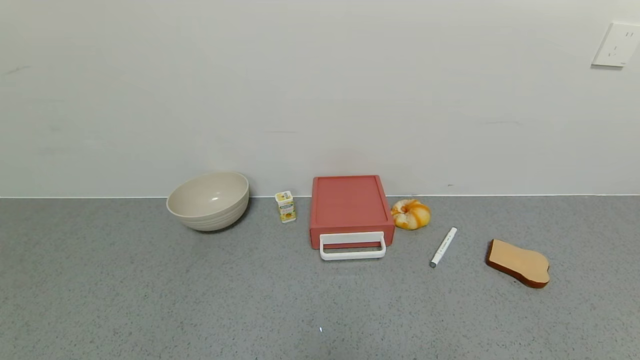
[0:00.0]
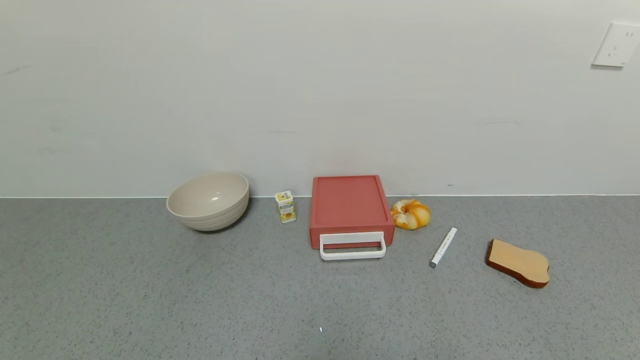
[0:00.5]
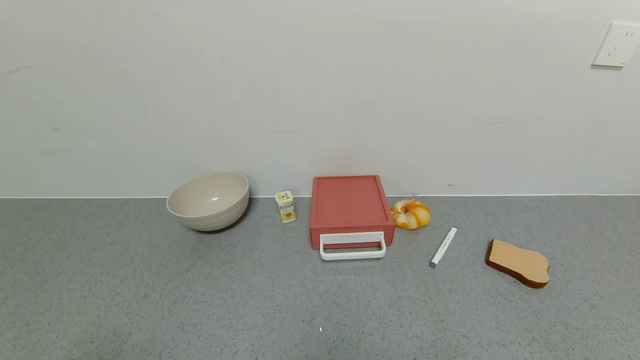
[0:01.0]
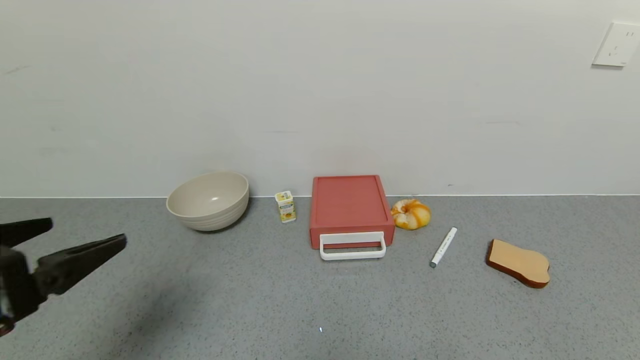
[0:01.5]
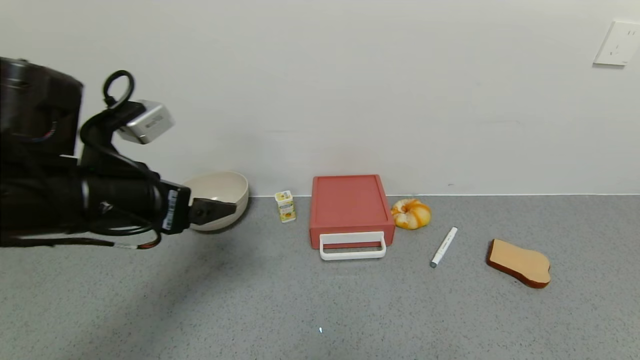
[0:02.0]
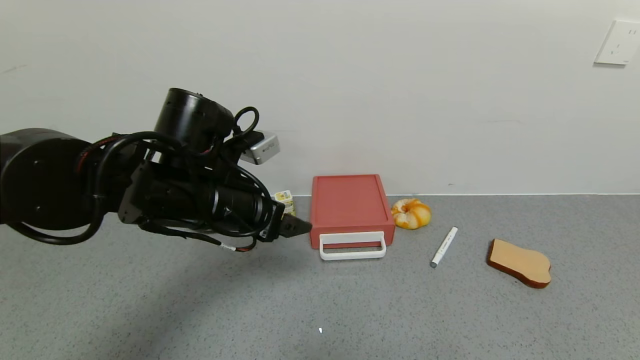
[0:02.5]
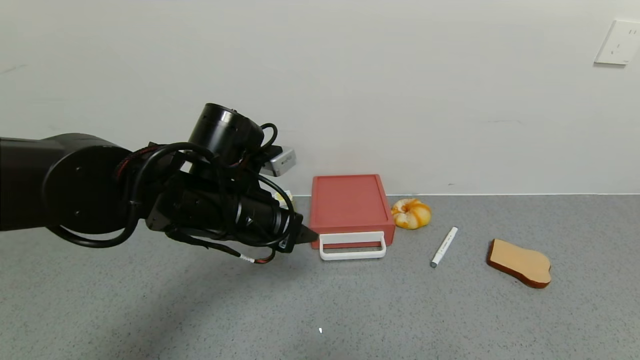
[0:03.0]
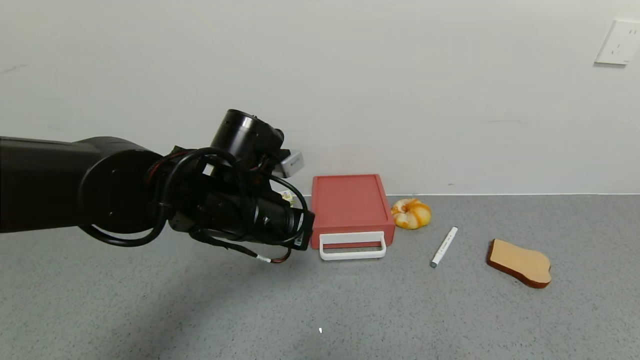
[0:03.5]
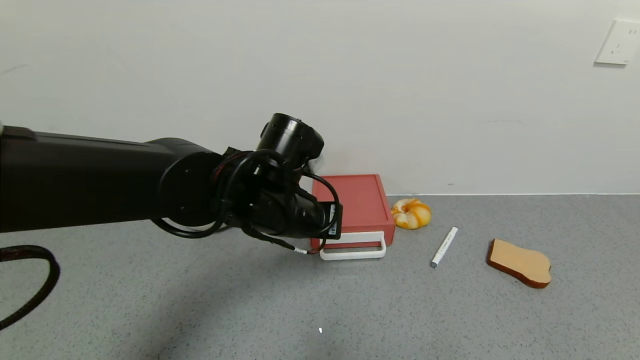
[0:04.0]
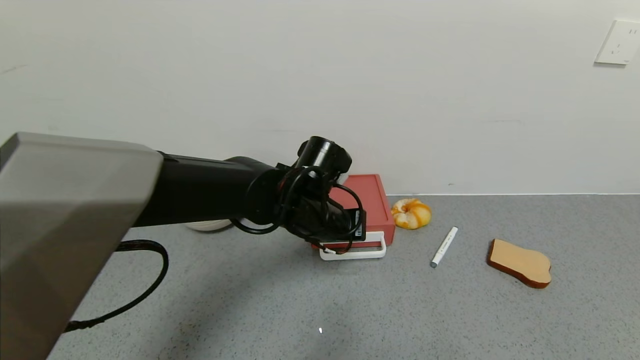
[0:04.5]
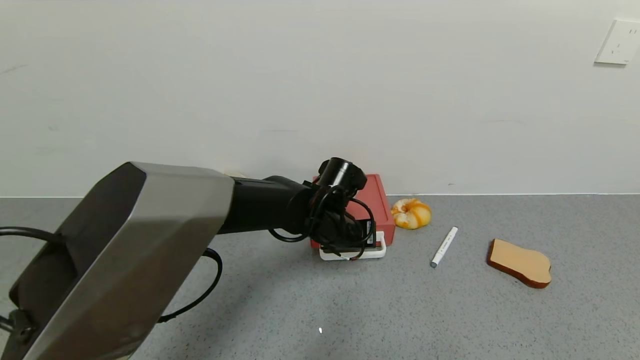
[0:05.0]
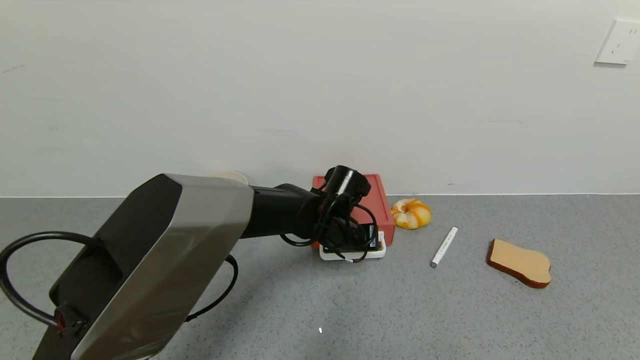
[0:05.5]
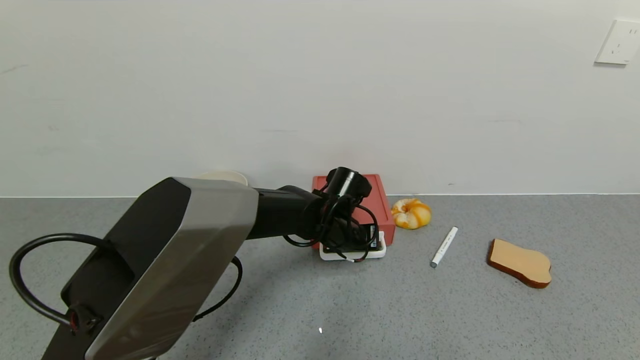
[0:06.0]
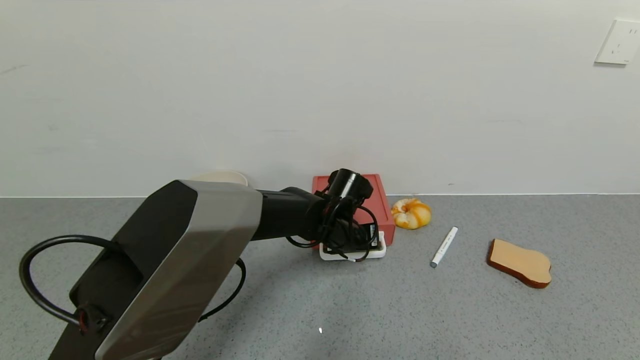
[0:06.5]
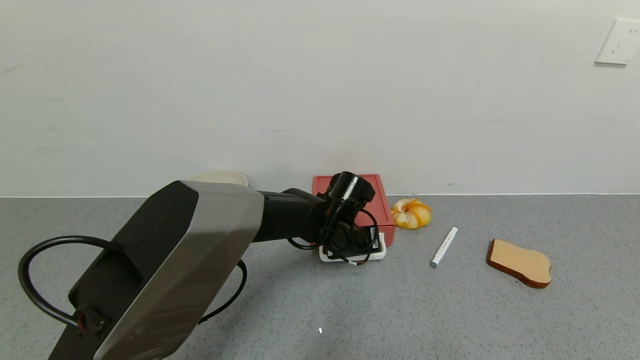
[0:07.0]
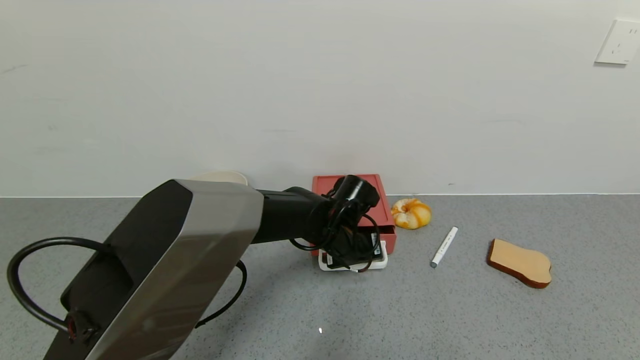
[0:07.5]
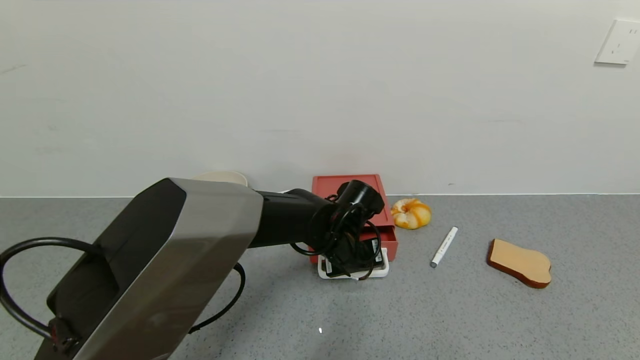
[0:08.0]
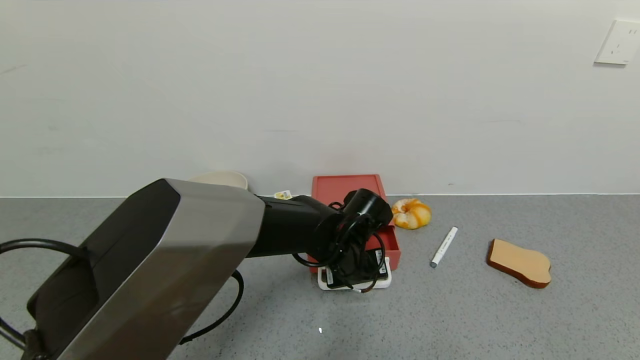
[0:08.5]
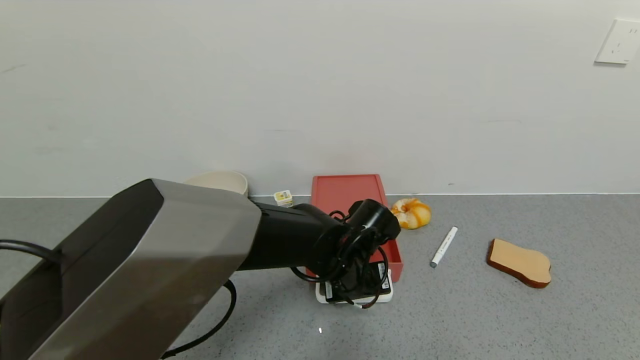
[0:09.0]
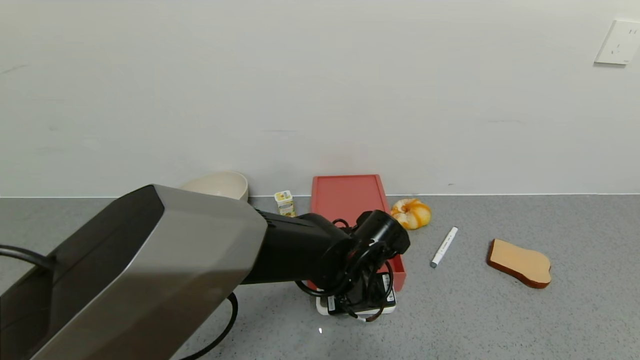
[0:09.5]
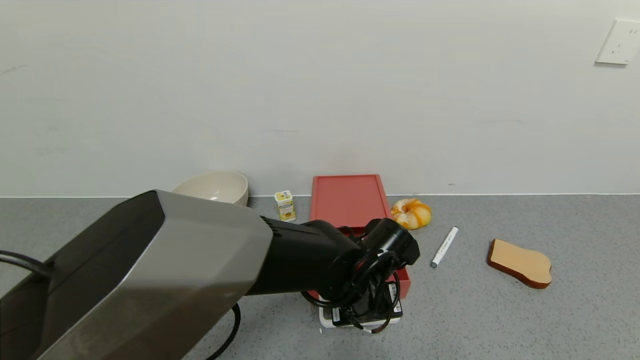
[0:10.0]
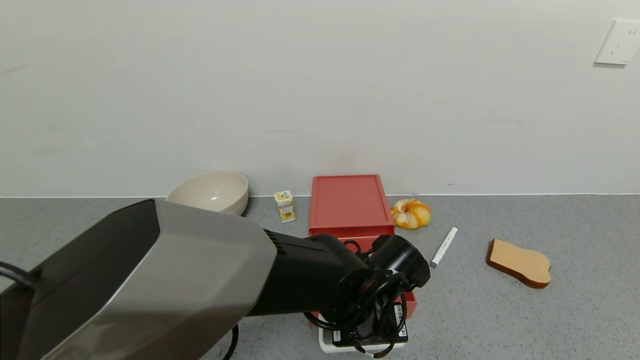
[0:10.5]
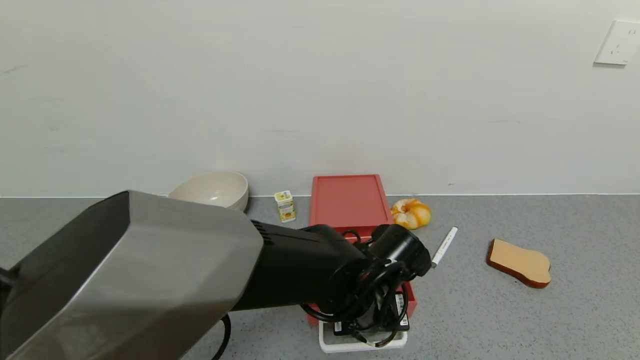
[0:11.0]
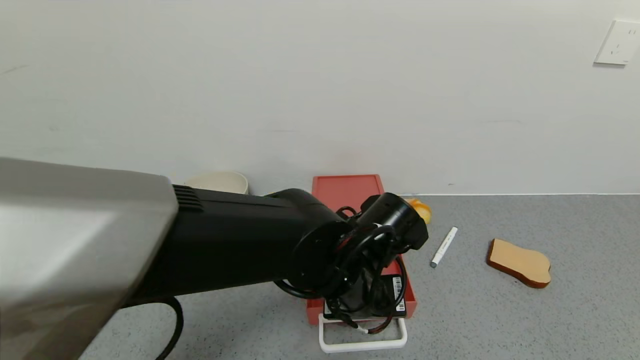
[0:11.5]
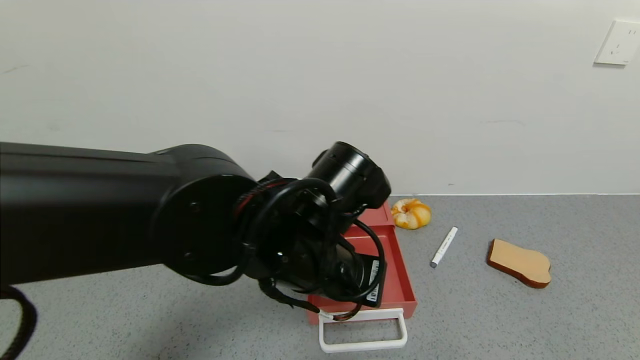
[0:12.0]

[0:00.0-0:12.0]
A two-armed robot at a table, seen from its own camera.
Task of the whole recording: use the gripper to open the drawer and close the red drawer.
Step, 0:00.0 to 0:11.0: Open the red drawer with left gripper.
0:00.0 to 0:02.0: The left gripper moves forward and upward, some 30 cm.
0:02.0 to 0:04.0: The left gripper shifts roughly 15 cm to the right and forward, and closes its fingers.
0:04.0 to 0:06.0: The left gripper goes about 15 cm downward, forward and to the right.
0:06.0 to 0:08.0: The grippers make only small movements.
0:08.0 to 0:10.0: The left gripper is displaced backward by approximately 10 cm.
0:10.0 to 0:12.0: The left gripper goes roughly 15 cm upward and to the left.

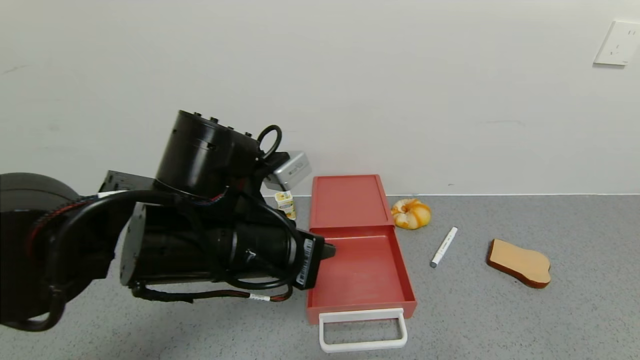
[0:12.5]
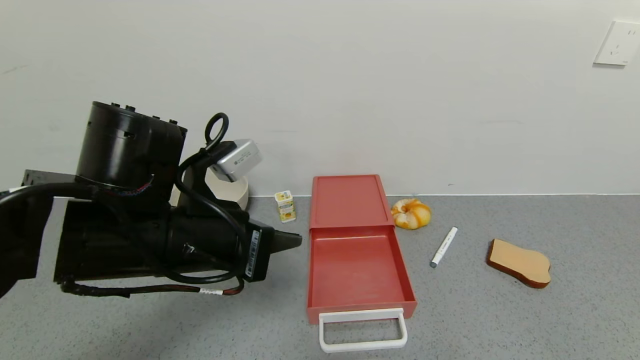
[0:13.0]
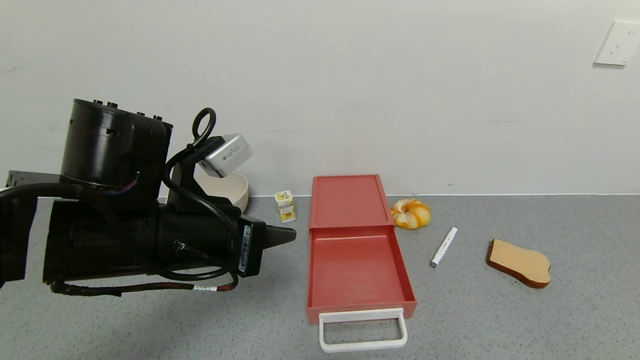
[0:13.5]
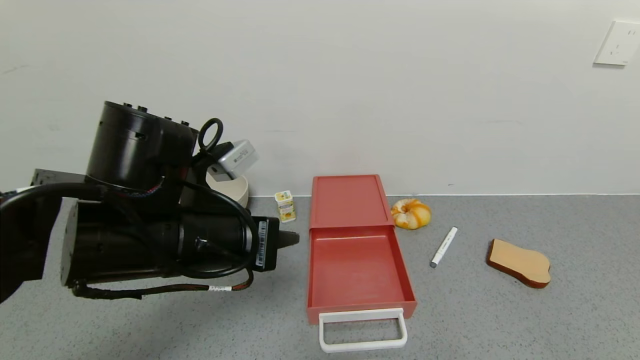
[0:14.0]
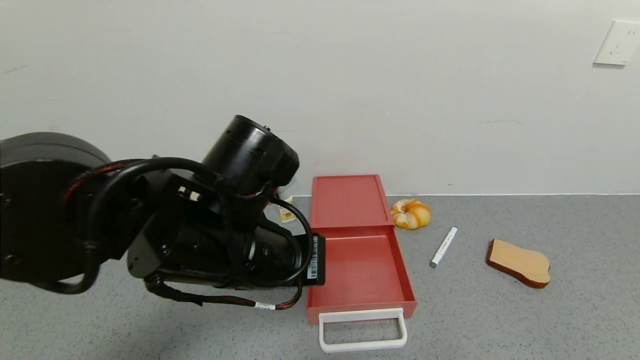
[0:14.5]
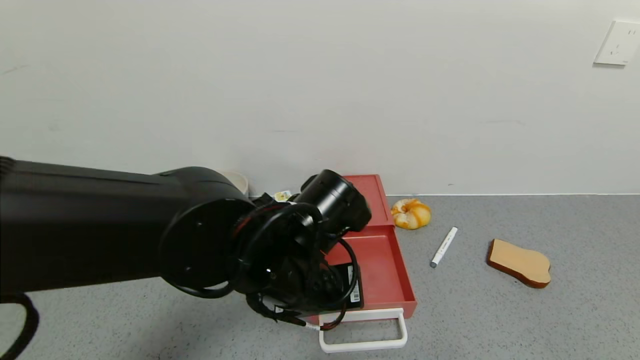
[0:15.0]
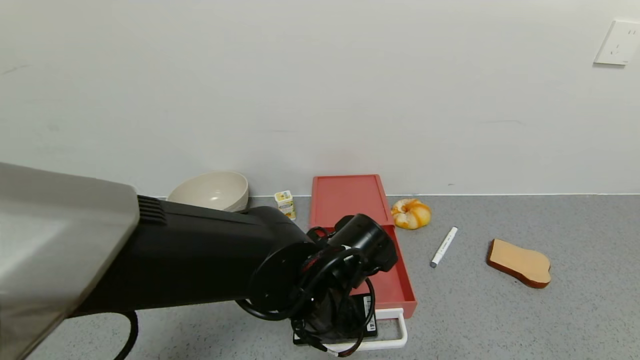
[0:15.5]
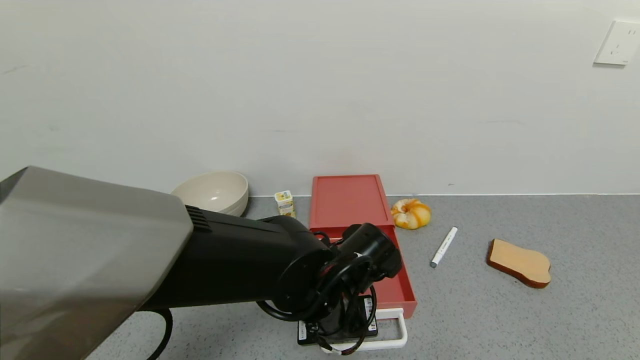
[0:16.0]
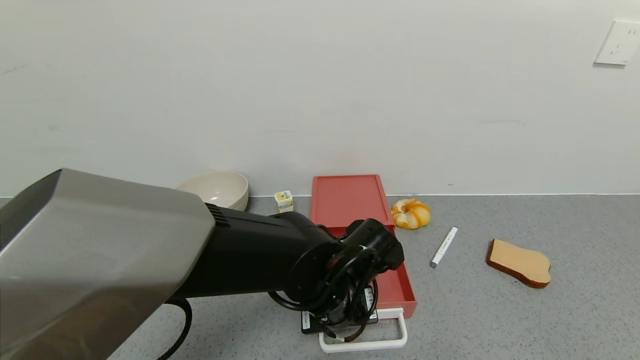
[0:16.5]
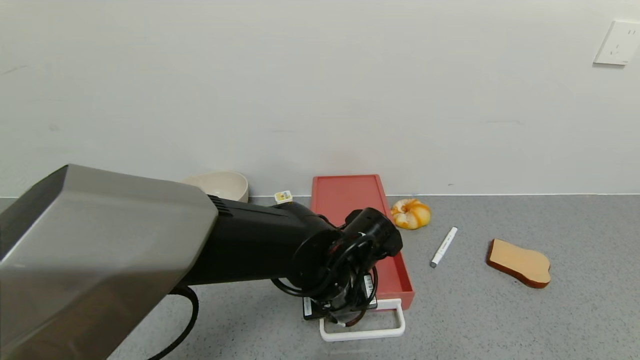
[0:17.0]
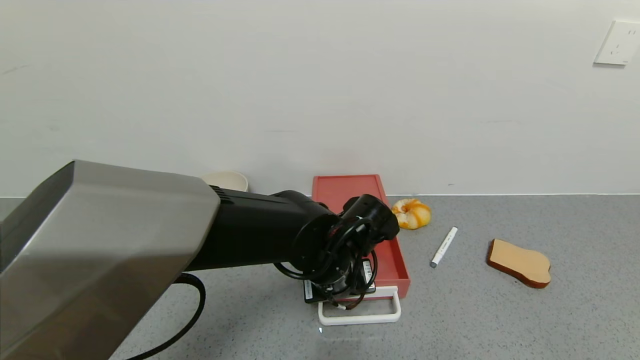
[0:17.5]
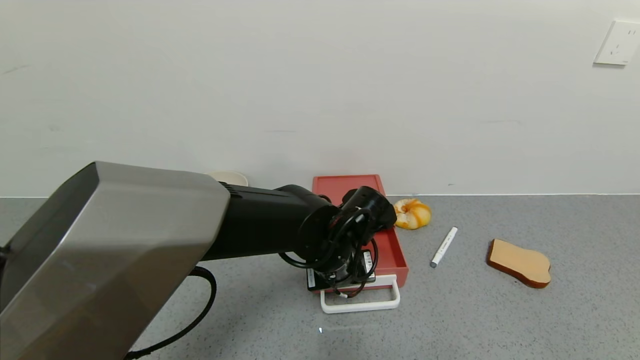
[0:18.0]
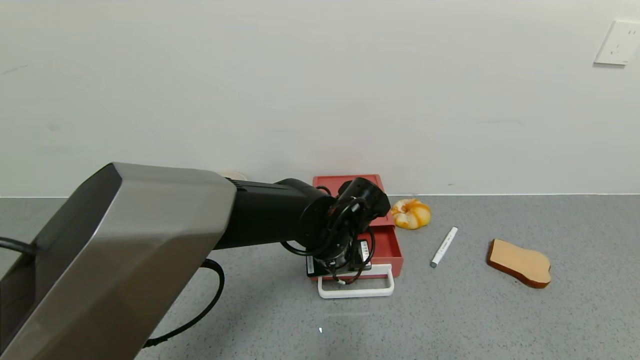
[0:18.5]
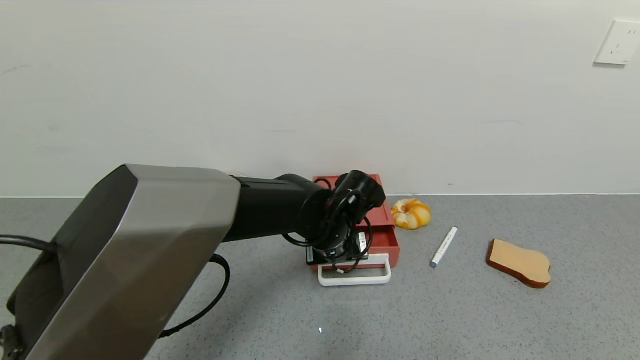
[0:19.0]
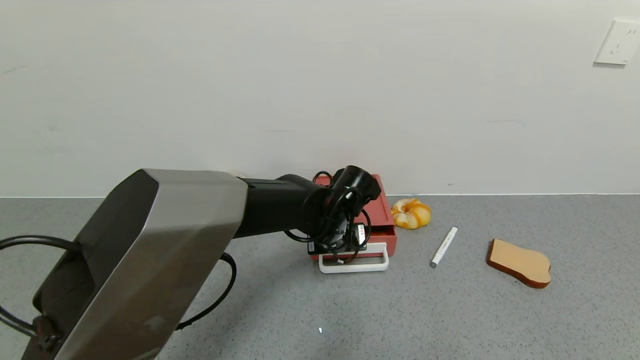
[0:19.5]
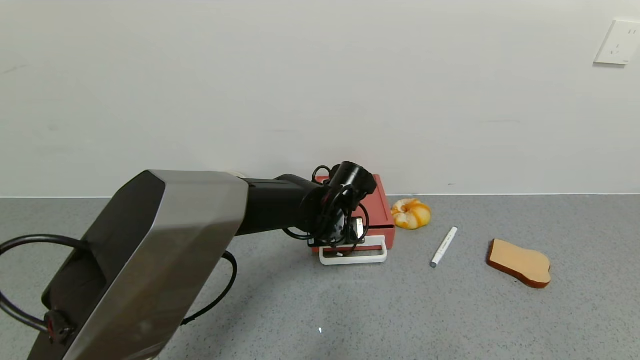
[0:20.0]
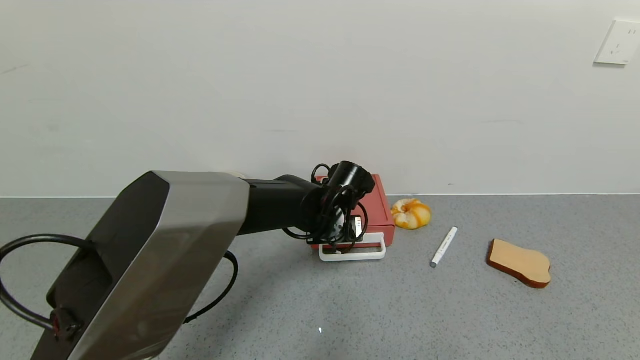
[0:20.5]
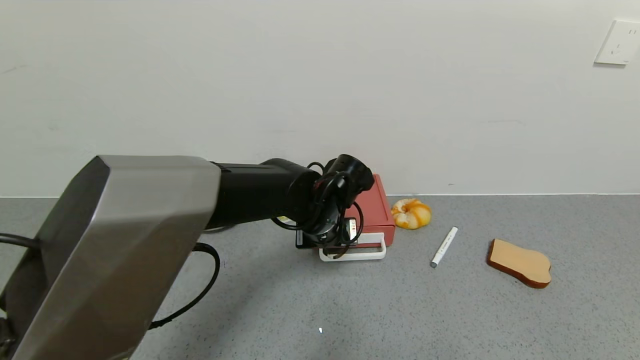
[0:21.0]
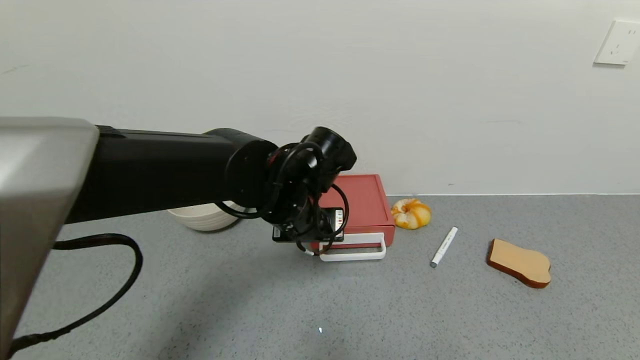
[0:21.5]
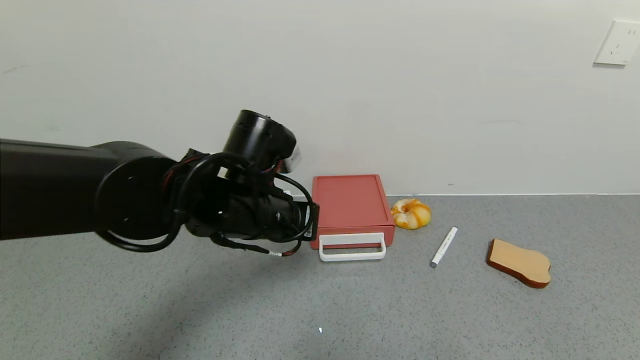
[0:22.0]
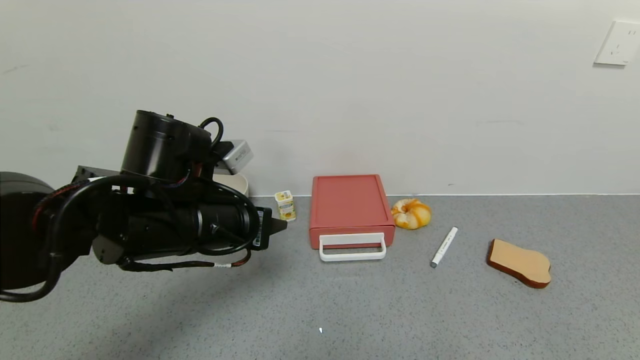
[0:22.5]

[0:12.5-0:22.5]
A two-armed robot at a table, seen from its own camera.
Task of the whole recording: use the gripper to open the drawer and close the red drawer.
Step, 0:12.5 to 0:20.5: Close the red drawer with left gripper.
0:14.5 to 0:16.5: The left gripper heads downward and to the right, covering about 15 cm.
0:16.5 to 0:18.5: The left gripper is displaced forward by approximately 5 cm.
0:18.5 to 0:20.5: The left gripper travels forward by some 5 cm.
0:20.5 to 0:22.5: The left gripper shifts approximately 20 cm to the left, backward and upward, and opens.
